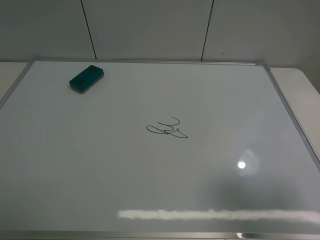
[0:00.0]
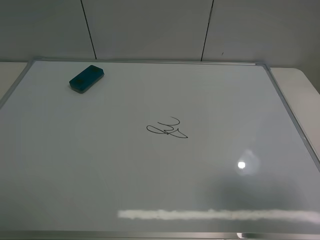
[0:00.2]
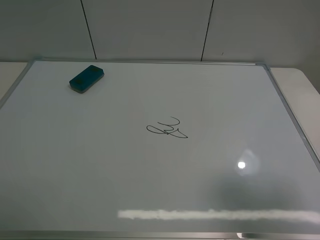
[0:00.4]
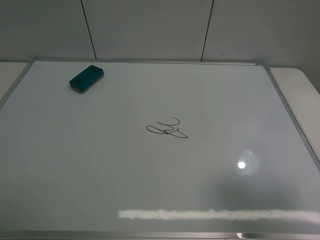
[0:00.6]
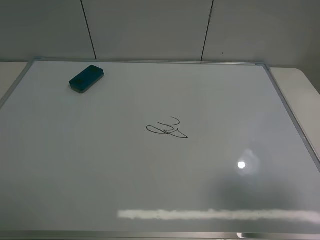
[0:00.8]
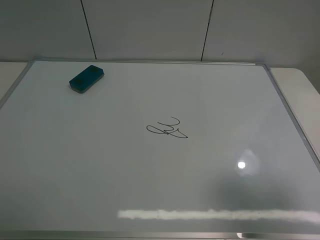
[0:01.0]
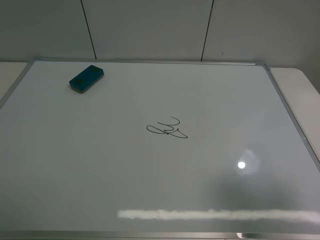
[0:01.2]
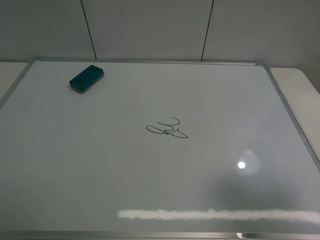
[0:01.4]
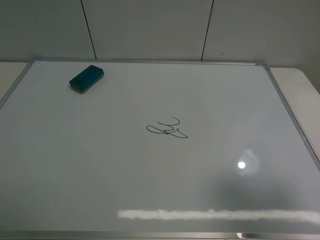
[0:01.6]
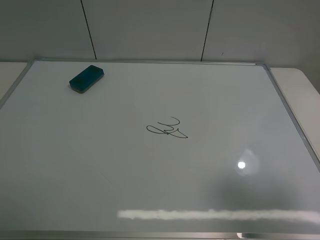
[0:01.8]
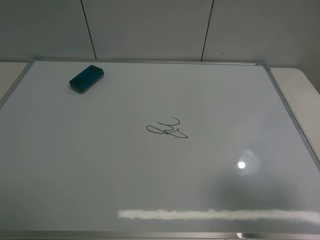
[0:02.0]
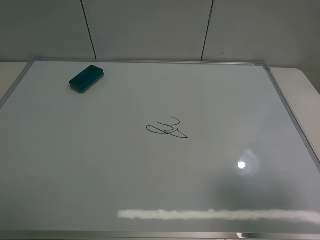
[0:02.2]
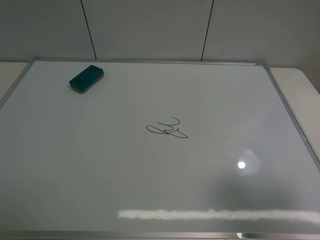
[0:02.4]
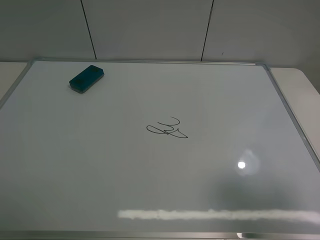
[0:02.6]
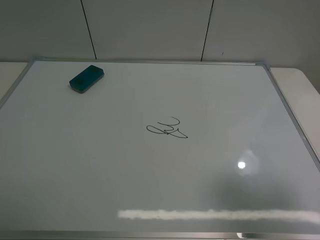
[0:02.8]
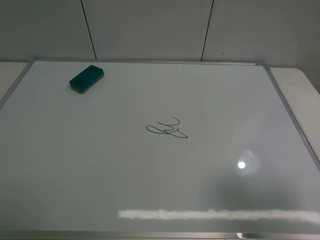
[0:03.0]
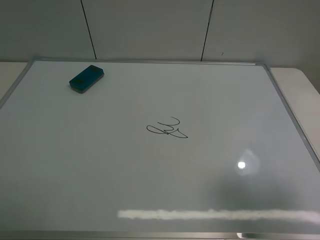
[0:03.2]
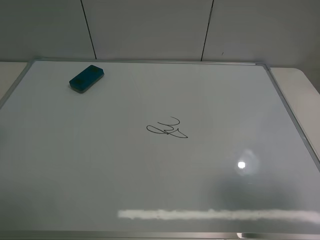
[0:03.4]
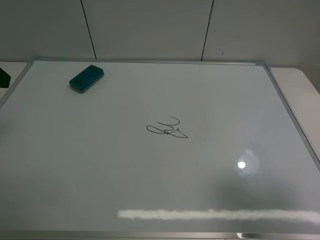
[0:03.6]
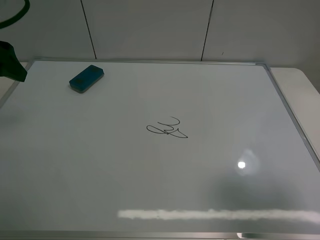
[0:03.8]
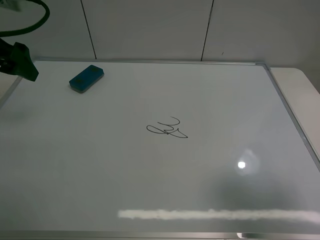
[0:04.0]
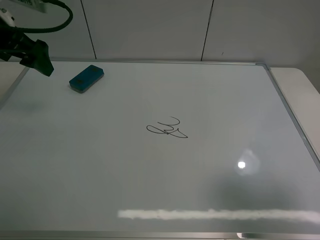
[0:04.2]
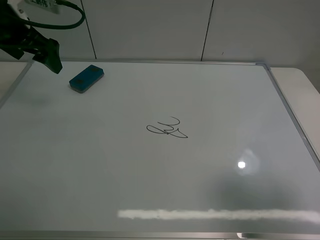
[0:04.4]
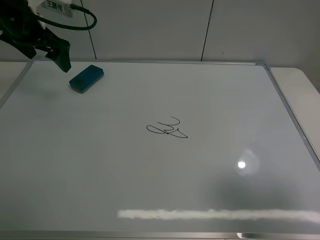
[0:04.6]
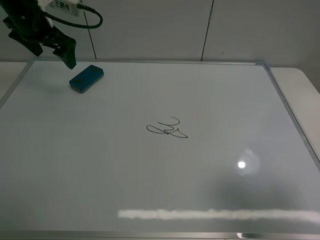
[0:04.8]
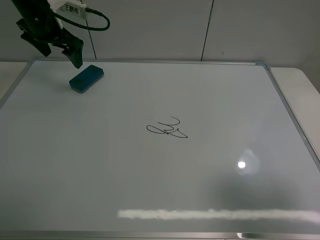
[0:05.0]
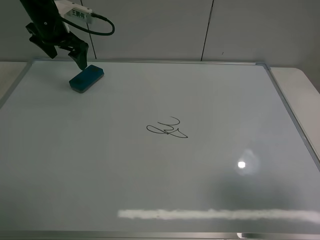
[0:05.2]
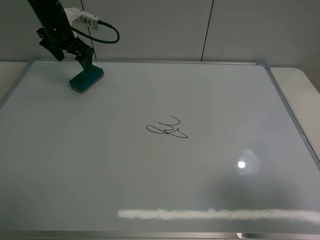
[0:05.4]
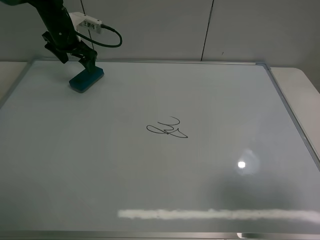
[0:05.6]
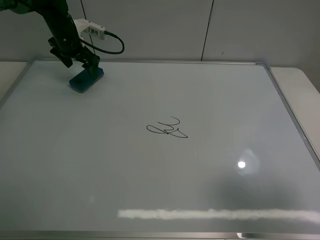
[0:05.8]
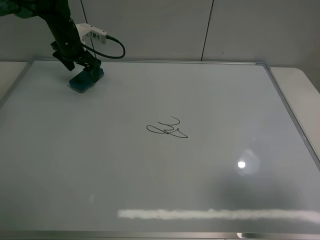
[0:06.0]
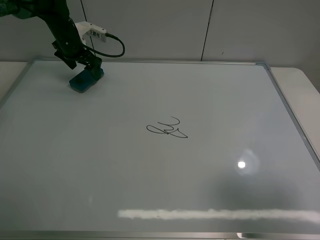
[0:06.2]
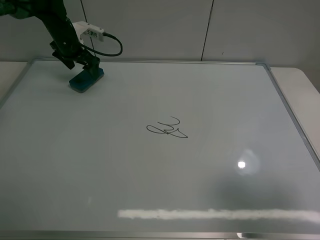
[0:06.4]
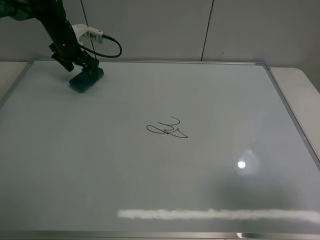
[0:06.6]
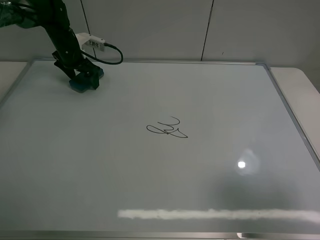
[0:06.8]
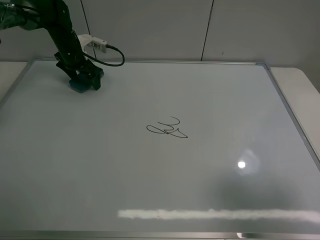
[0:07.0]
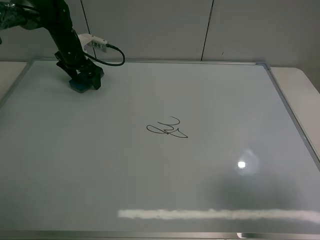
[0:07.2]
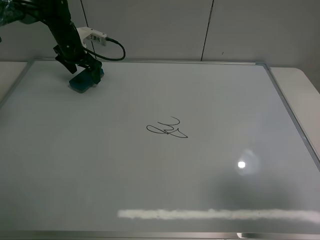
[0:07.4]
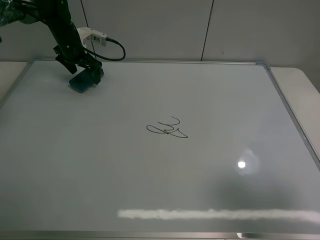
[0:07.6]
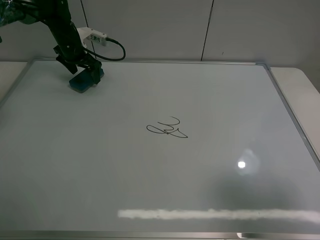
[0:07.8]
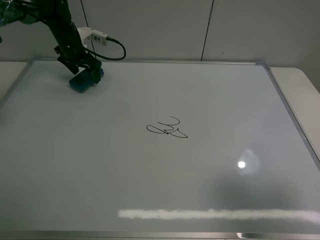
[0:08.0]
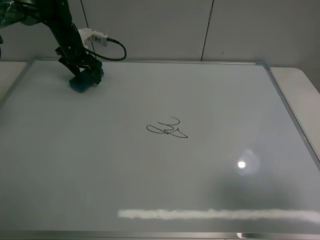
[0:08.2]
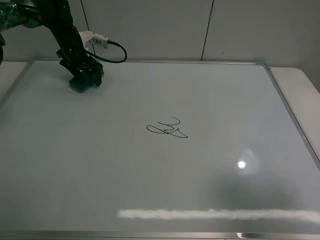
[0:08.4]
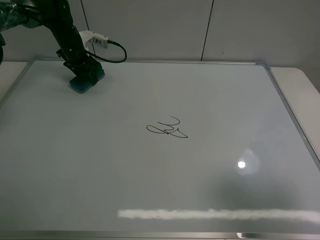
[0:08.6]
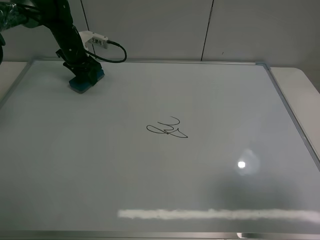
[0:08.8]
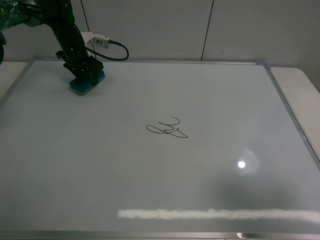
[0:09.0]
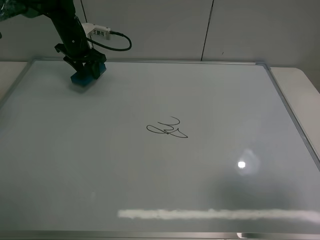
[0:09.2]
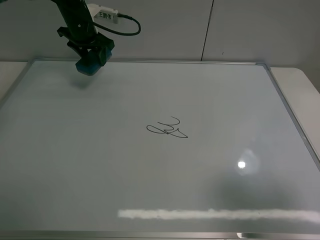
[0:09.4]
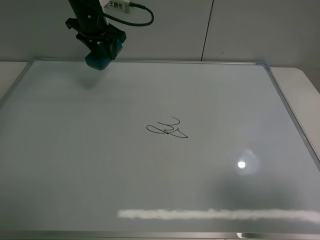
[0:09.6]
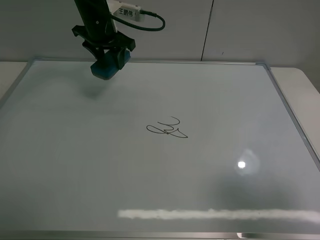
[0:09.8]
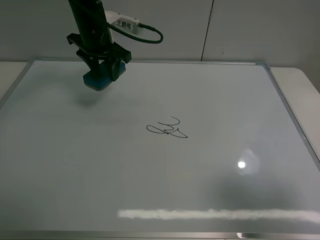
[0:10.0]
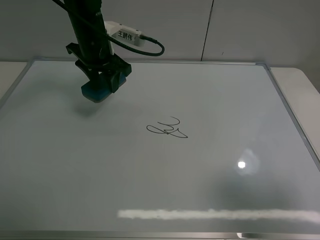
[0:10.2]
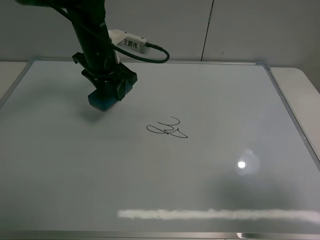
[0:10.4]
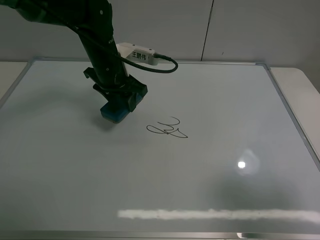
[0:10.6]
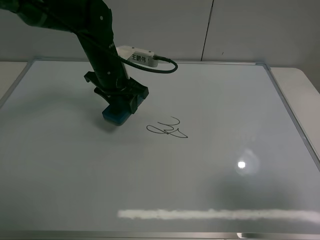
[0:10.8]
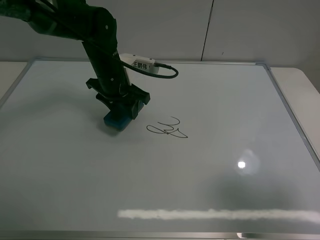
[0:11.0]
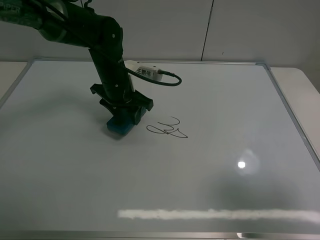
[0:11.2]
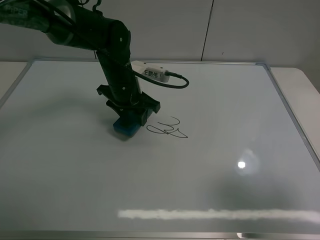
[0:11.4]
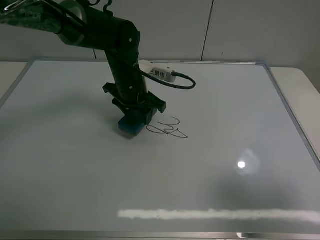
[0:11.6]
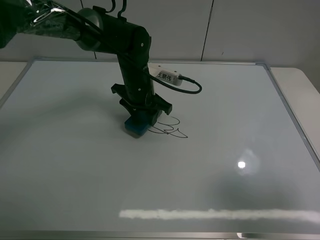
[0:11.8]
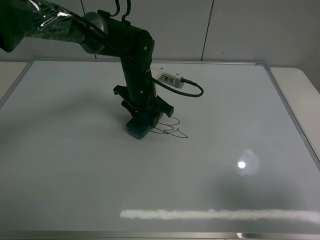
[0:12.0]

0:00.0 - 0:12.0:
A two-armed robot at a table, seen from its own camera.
Task of the whole recording: use the left claw to pick up the whiteboard eraser, wipe the notes on the whiteboard clean, and then put them back in place.
Step, 0:00.0 - 0:08.8: Grasp the eraser with the left gripper.
0:00.0 - 0:01.6: Neither gripper changes place.
0:03.0 - 0:04.4: The left gripper goes roughly 30 cm forward.
0:04.4 - 0:06.0: The left gripper goes approximately 20 cm forward and downward.
0:06.0 - 0:07.6: The grippers move only a little.
0:07.6 - 0:09.0: The left gripper closes up.
0:09.0 - 0:10.4: The left gripper travels backward, to the right and upward by about 20 cm.
0:10.4 - 0:12.0: The left gripper travels downward and to the right by roughly 10 cm.

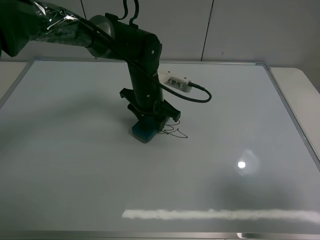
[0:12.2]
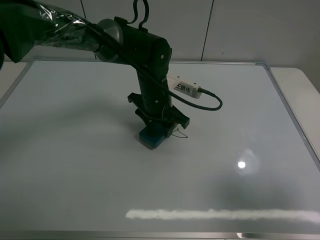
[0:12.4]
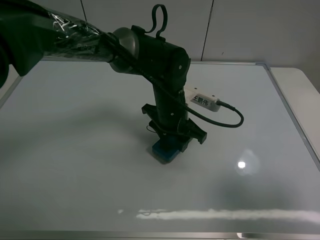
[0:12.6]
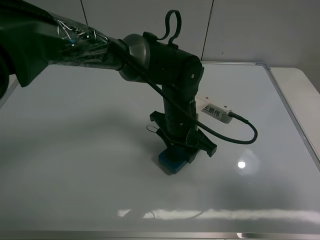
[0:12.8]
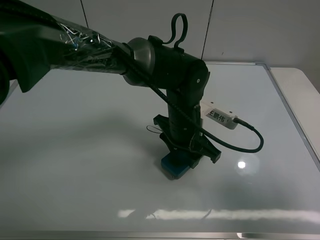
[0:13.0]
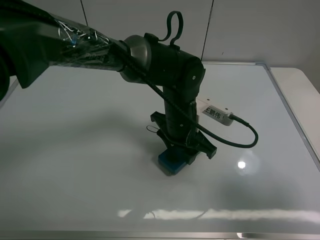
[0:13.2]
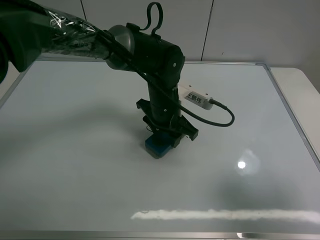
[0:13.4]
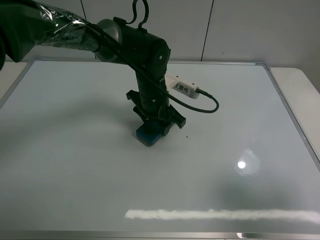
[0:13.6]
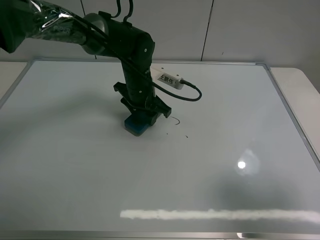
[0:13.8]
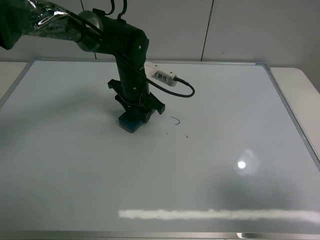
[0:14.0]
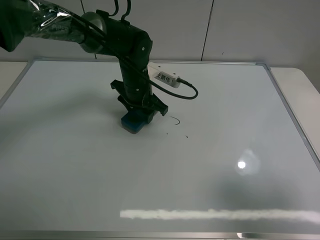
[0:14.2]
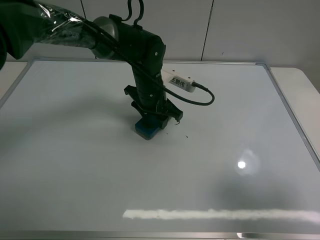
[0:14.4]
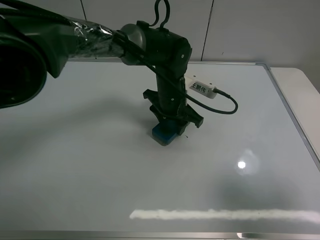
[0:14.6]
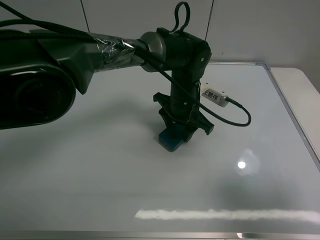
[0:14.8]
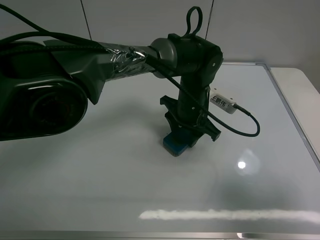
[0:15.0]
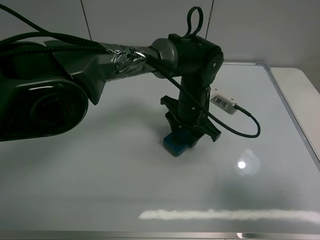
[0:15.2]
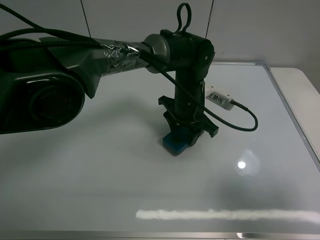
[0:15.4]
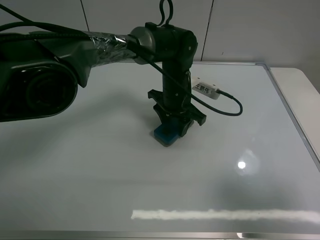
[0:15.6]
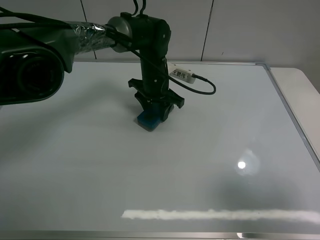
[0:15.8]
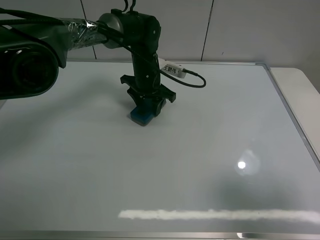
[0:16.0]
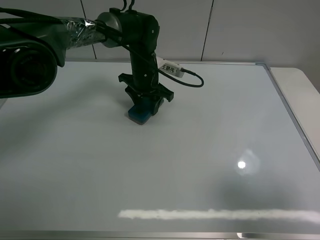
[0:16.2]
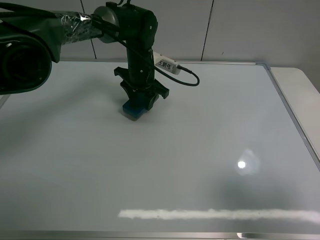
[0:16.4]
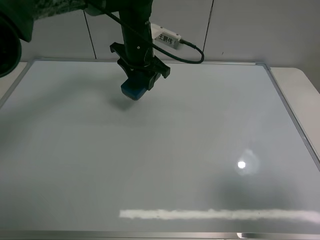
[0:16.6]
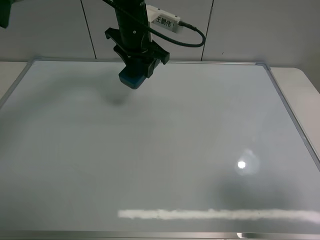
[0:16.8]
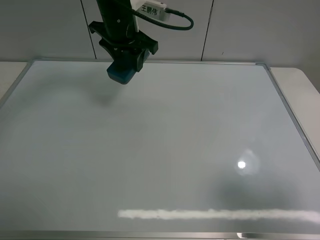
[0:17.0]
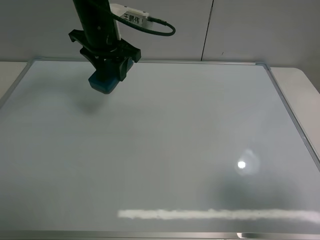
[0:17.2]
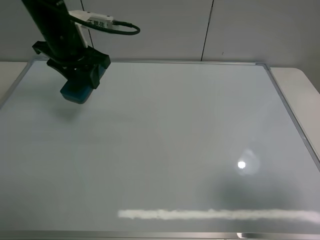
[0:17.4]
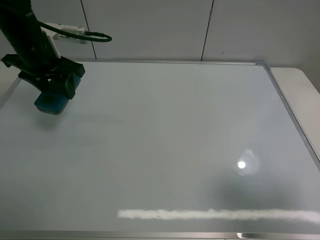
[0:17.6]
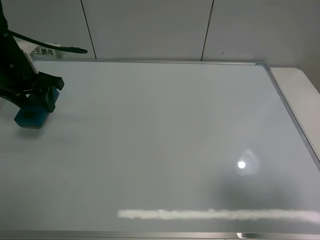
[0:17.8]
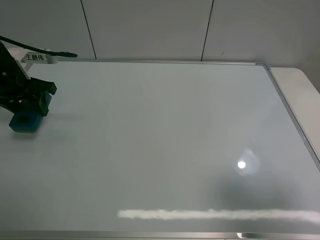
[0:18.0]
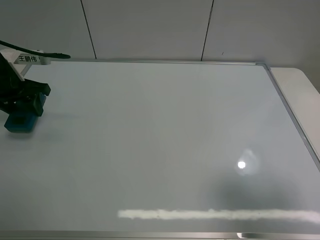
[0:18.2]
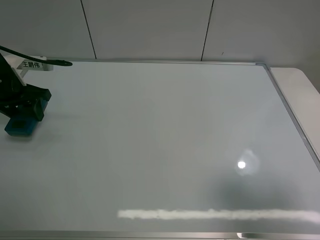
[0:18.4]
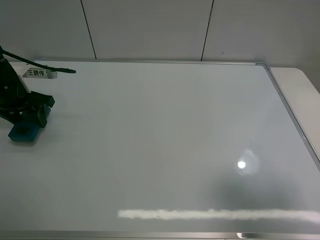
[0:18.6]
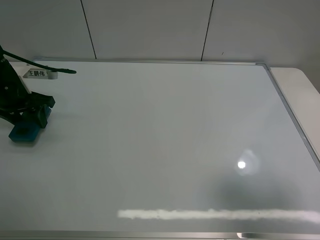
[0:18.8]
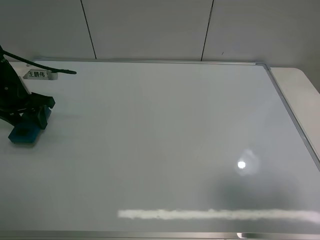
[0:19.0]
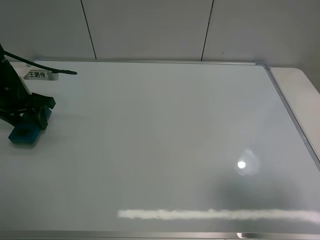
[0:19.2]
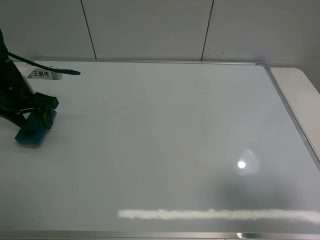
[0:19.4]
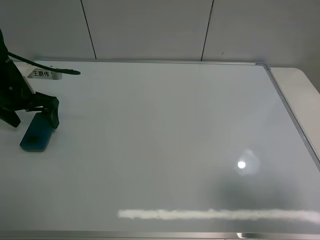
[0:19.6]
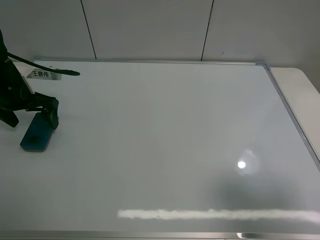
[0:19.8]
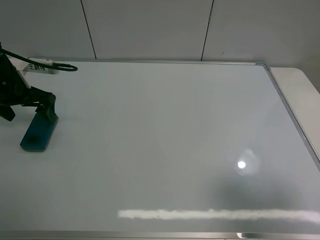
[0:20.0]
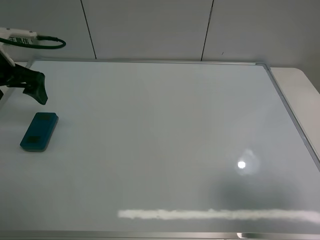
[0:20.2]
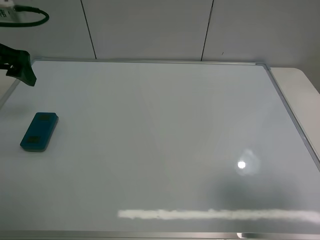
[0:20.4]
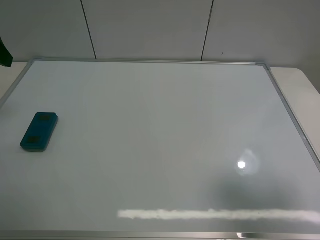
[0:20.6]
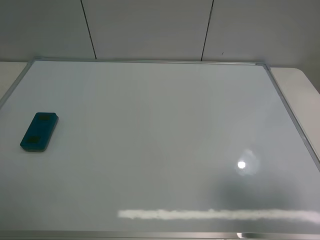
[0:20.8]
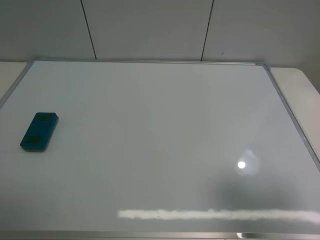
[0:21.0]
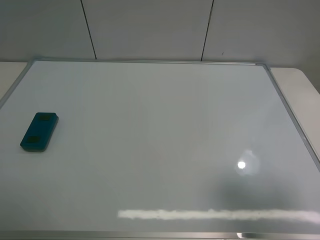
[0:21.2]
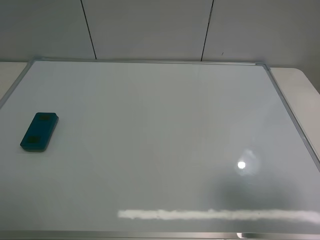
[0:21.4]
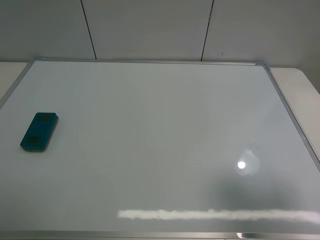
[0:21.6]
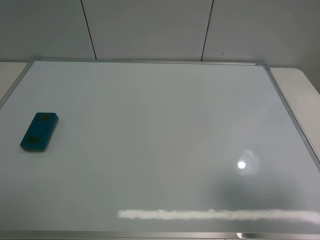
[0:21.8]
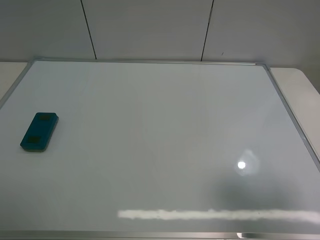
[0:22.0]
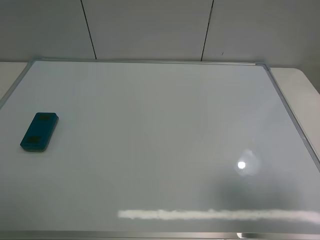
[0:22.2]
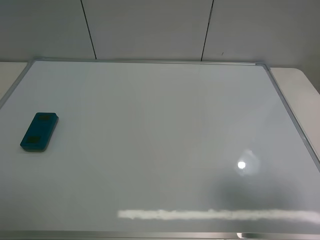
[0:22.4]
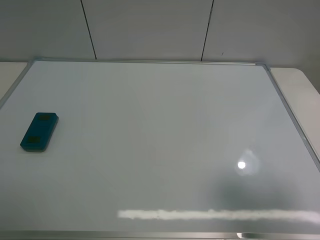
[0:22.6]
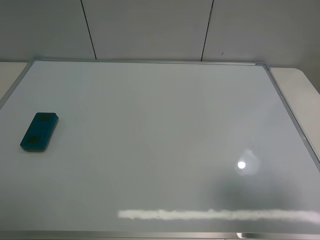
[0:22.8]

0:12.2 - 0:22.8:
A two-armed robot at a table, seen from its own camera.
Task of the whole recording: use the left claw to pick up the whiteboard eraser, wipe the notes on the whiteboard clean, and then put them back in place.
Step, 0:12.2 - 0:16.4: Grasp the eraser and wipe the blackboard with the left gripper.
Step, 0:16.6 - 0:19.6: Place the eraser with the left gripper.
0:12.2 - 0:13.8: The left gripper goes backward and returns, approximately 10 cm each way.
0:13.8 - 0:15.2: The left gripper travels to the right by about 10 cm.
0:15.2 - 0:16.8: The left gripper is displaced to the left, upward and forward by about 20 cm.
0:16.8 - 0:18.2: The left gripper is displaced to the left by some 25 cm.
0:18.2 - 0:19.8: The left gripper opens its fingers.
0:19.8 - 0:21.2: The left gripper shifts some 30 cm backward and upward.
